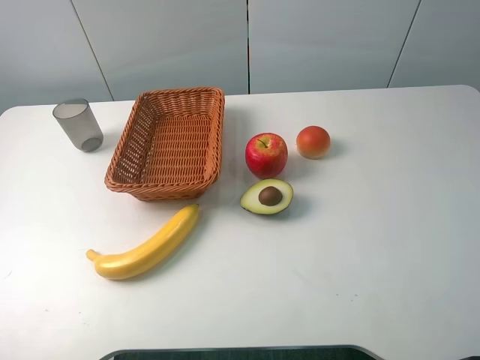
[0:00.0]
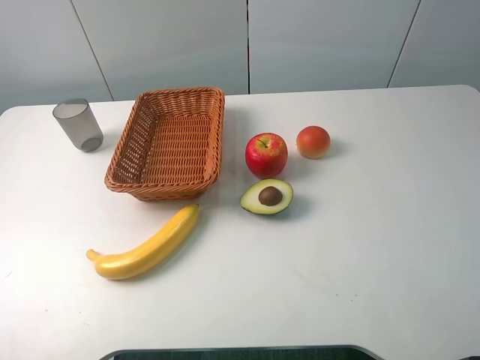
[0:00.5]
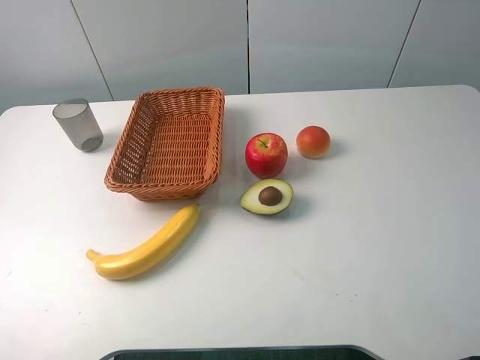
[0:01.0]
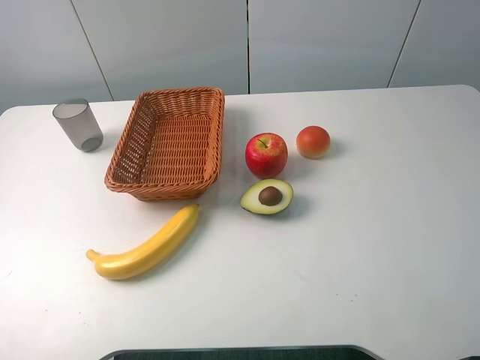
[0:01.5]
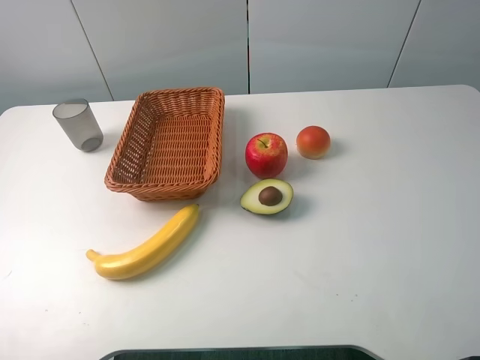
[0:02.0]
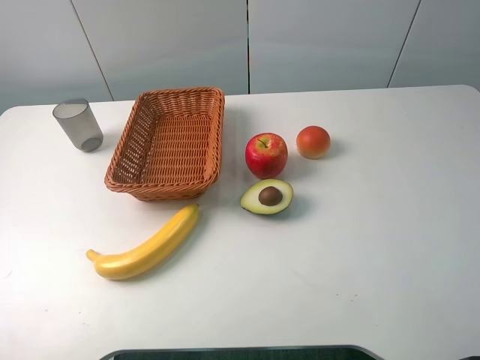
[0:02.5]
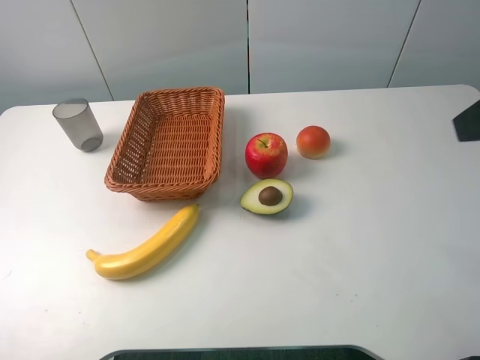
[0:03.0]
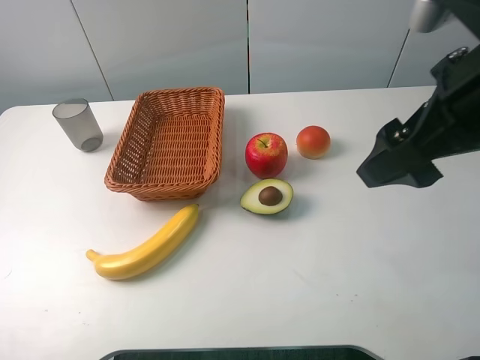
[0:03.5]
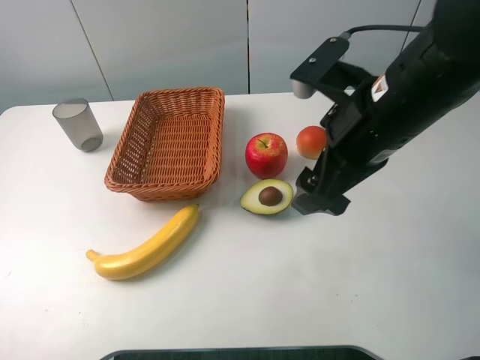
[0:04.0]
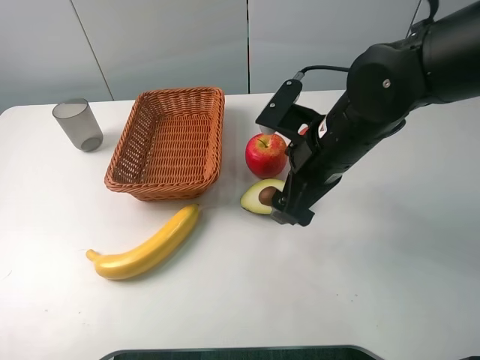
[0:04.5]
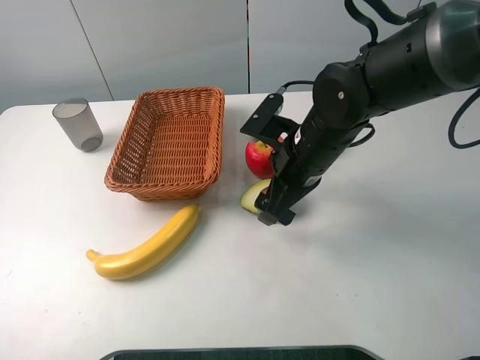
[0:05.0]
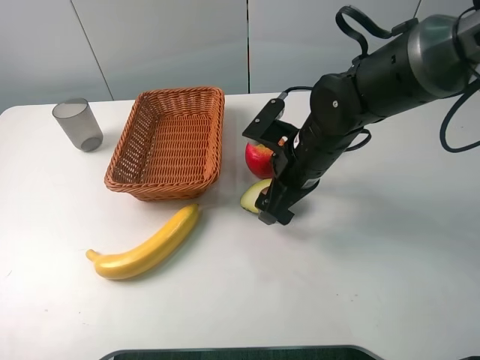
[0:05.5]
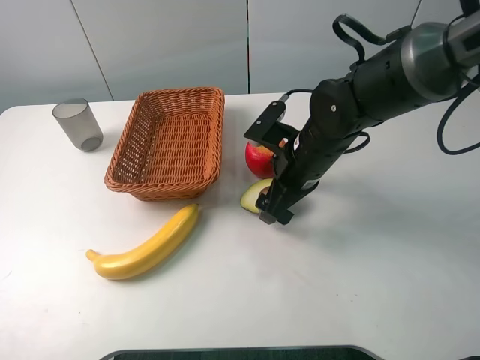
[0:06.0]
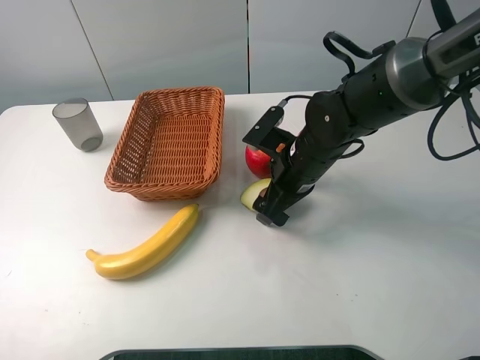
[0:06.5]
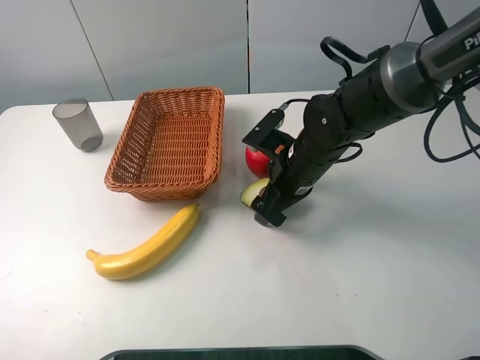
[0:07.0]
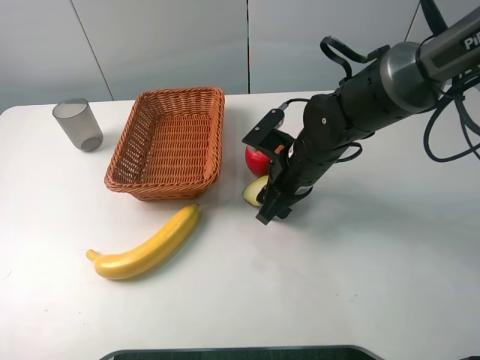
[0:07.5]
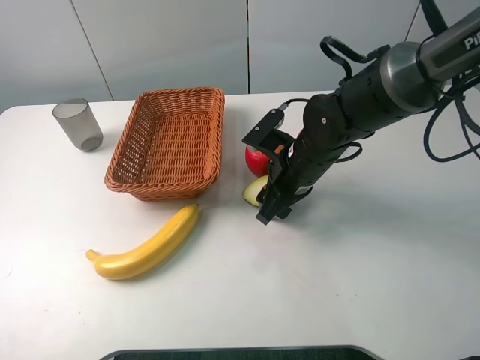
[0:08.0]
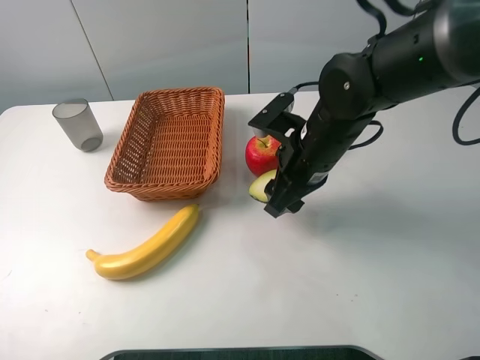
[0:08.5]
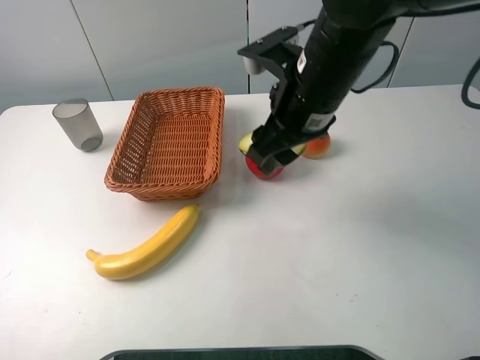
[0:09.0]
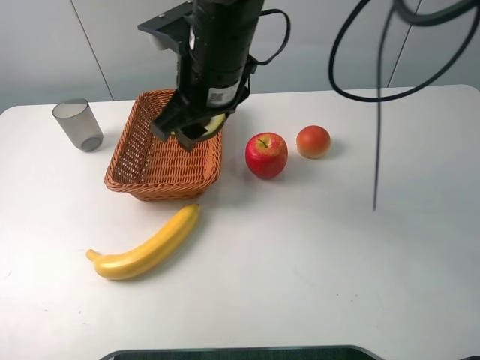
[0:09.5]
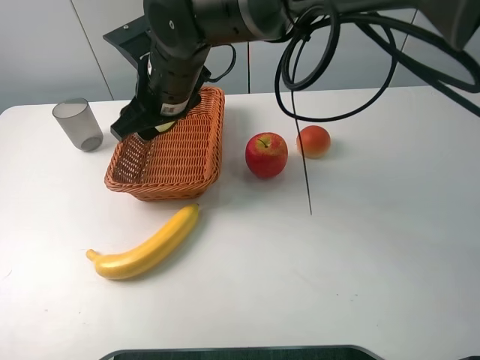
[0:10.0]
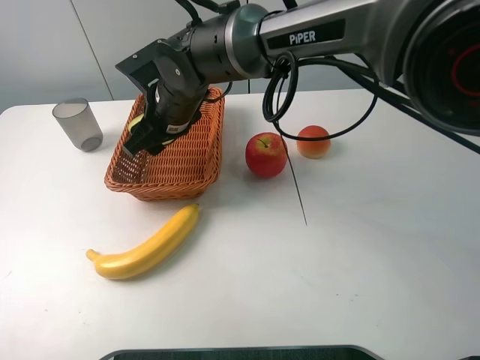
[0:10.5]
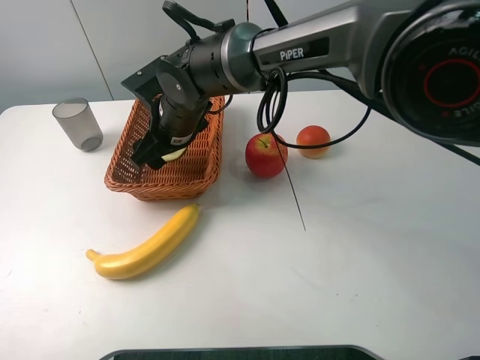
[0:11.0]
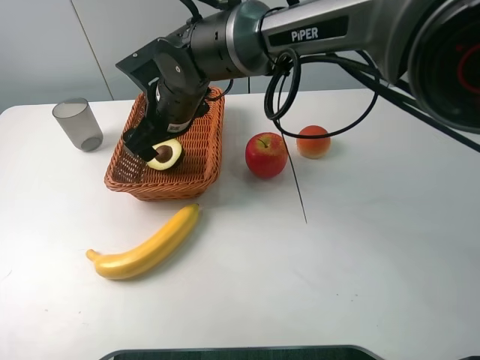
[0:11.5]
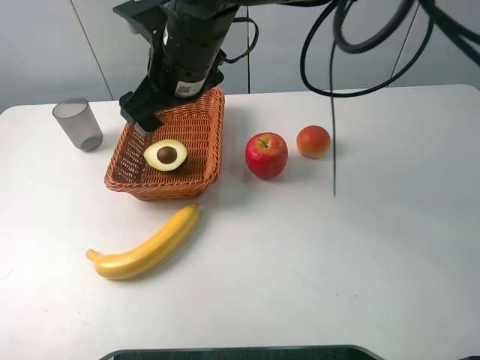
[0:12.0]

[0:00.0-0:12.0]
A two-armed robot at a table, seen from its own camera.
0:00.0 to 0:02.0: The two grippers keep their place.
0:02.0 to 0:04.0: The right gripper moves forward and to the left, approximately 25 cm.
0:04.0 to 0:06.0: The right gripper shifts roughly 15 cm downward and forward.
0:06.0 to 0:08.0: The right gripper closes up.
0:08.0 to 0:10.0: The right gripper heads to the left and upward, covering some 20 cm.
0:10.0 to 0:12.0: The right gripper changes place by some 5 cm, and opens up.

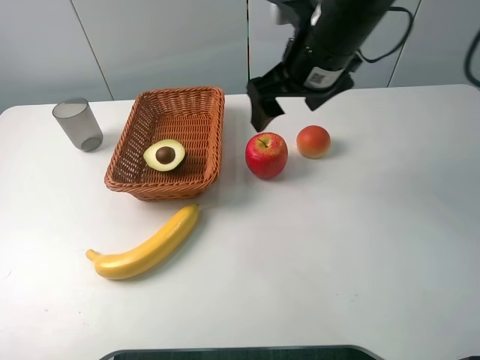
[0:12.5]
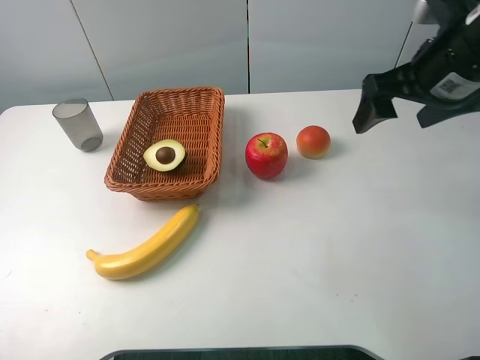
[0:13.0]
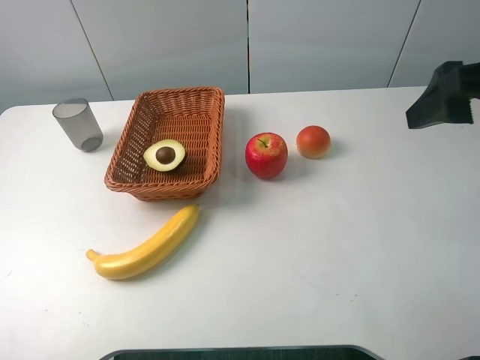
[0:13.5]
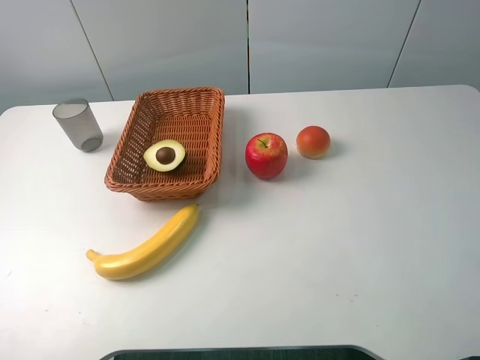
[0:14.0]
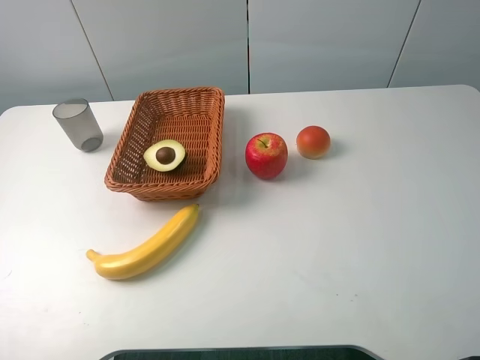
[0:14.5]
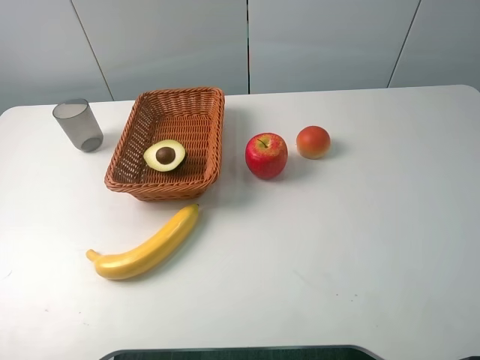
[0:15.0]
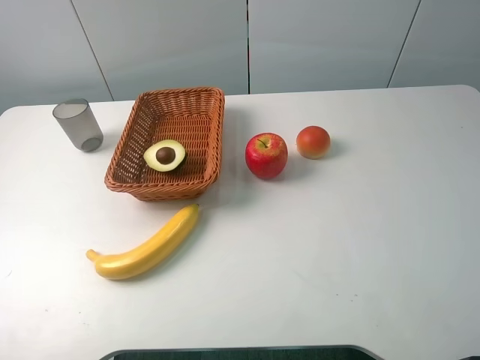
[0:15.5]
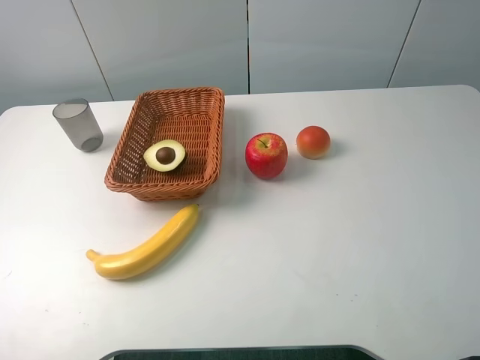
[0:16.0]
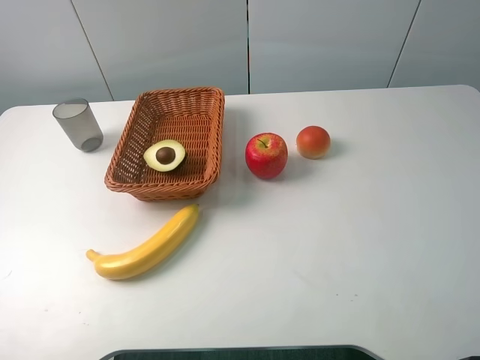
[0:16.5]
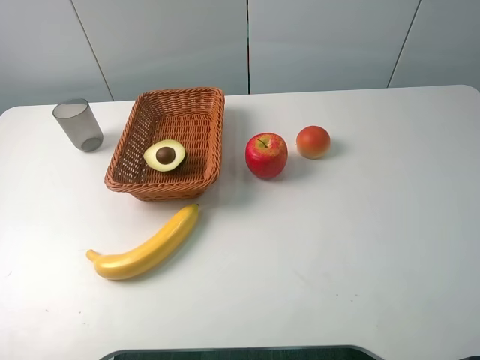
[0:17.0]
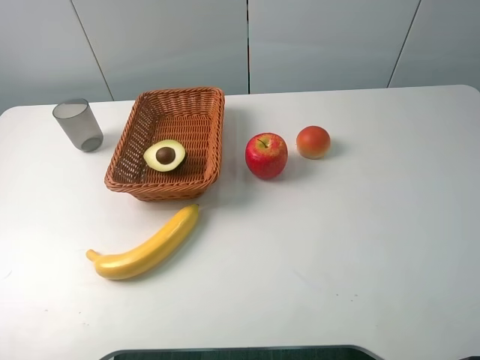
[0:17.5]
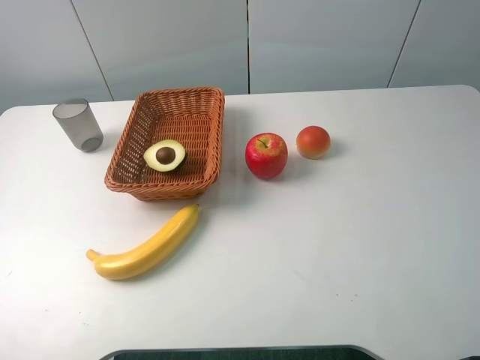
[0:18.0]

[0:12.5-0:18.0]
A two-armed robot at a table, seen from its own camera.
0:12.5 to 0:14.5: The right gripper goes about 35 cm backward and to the right.
0:16.0 to 0:18.0: Both grippers stay about where they are.
